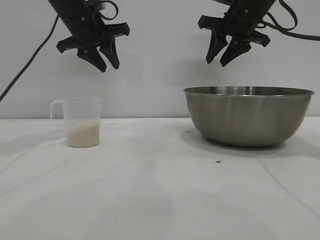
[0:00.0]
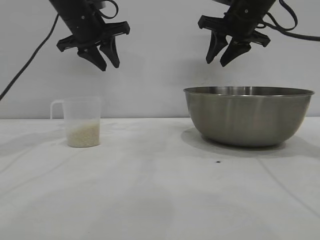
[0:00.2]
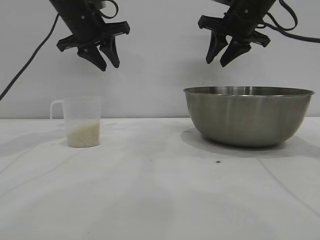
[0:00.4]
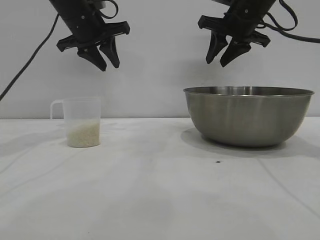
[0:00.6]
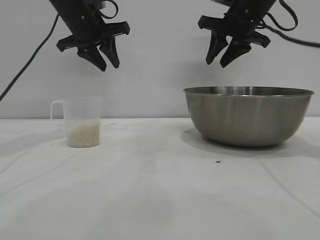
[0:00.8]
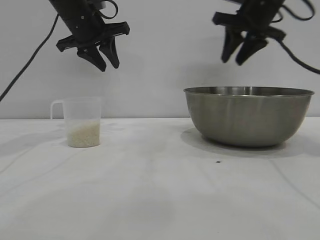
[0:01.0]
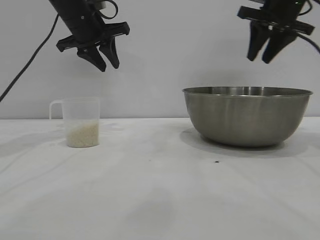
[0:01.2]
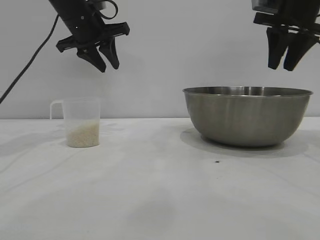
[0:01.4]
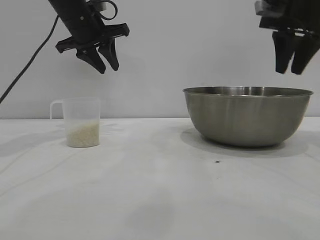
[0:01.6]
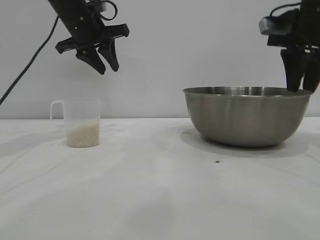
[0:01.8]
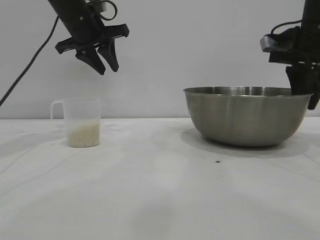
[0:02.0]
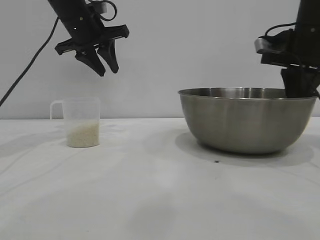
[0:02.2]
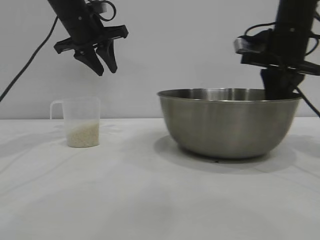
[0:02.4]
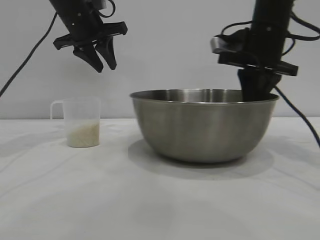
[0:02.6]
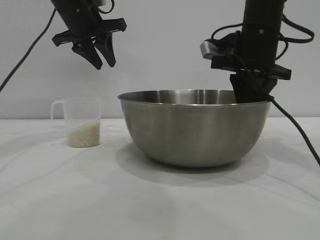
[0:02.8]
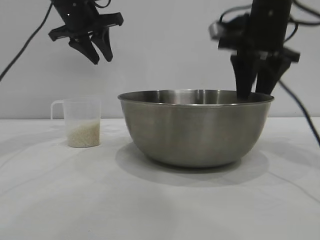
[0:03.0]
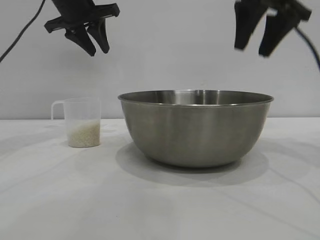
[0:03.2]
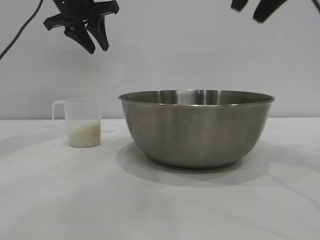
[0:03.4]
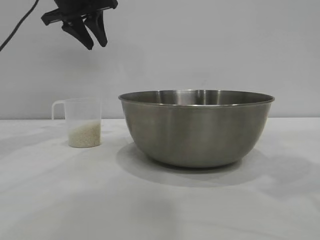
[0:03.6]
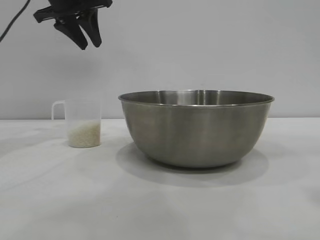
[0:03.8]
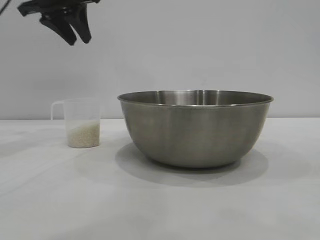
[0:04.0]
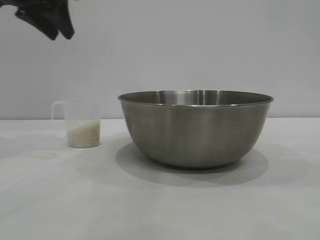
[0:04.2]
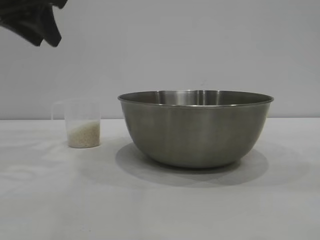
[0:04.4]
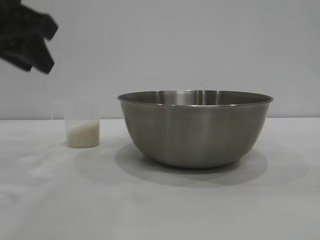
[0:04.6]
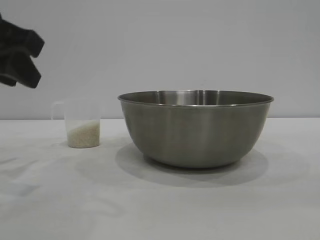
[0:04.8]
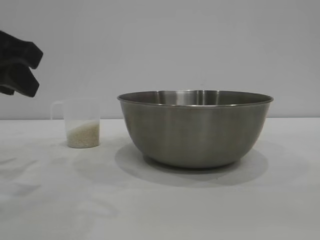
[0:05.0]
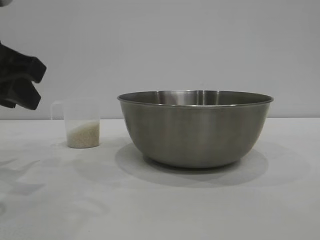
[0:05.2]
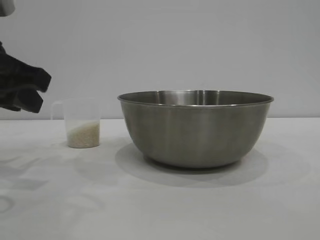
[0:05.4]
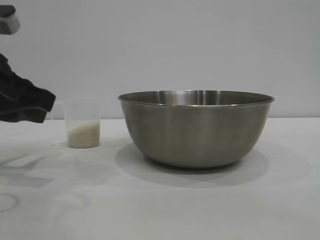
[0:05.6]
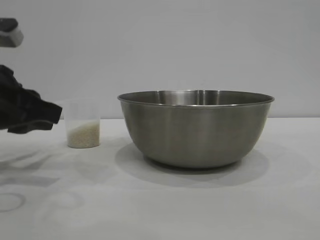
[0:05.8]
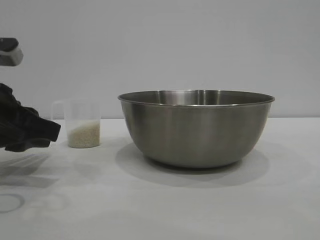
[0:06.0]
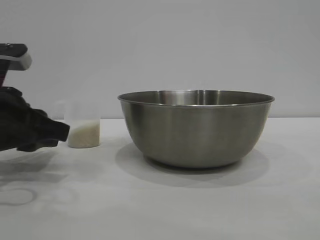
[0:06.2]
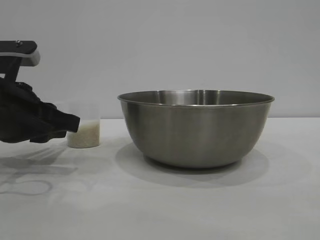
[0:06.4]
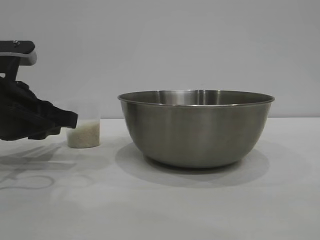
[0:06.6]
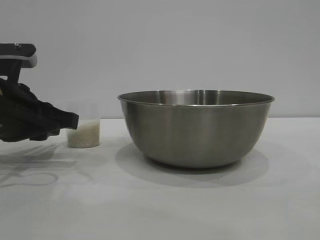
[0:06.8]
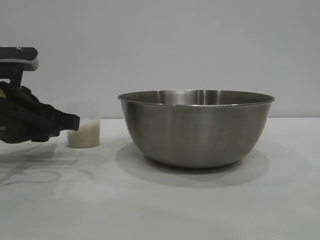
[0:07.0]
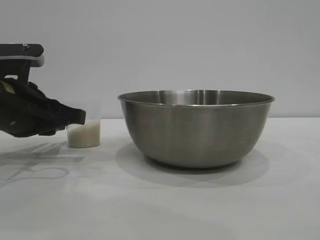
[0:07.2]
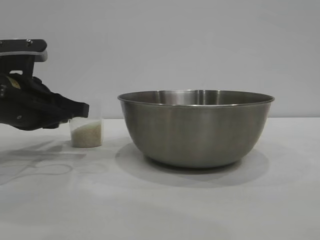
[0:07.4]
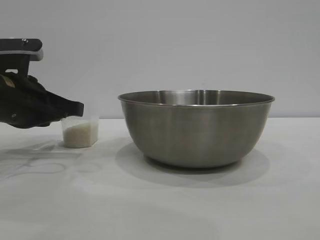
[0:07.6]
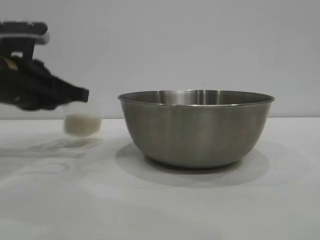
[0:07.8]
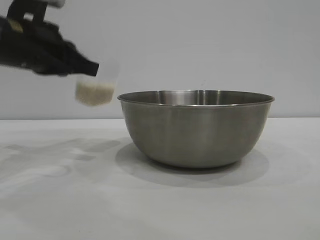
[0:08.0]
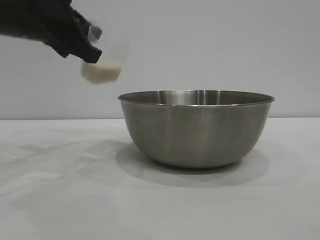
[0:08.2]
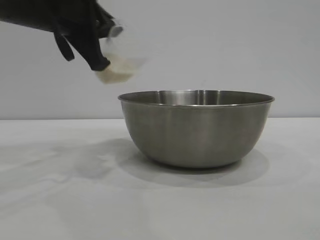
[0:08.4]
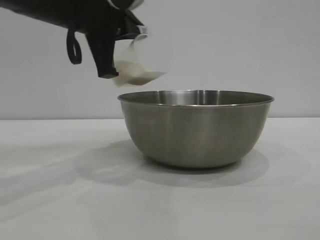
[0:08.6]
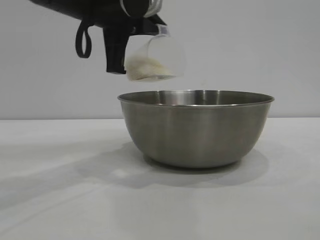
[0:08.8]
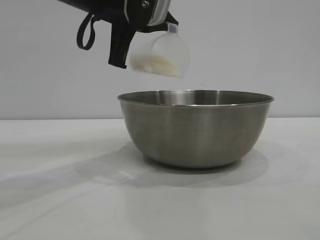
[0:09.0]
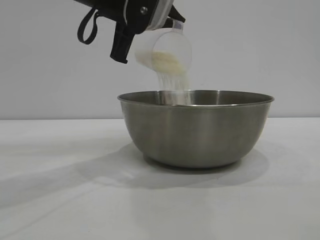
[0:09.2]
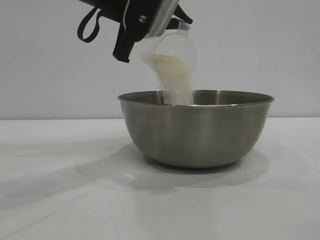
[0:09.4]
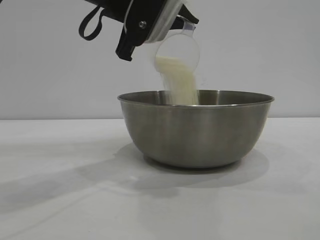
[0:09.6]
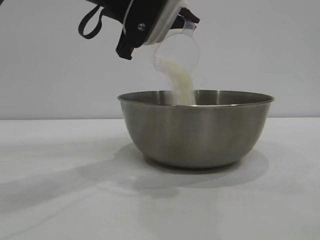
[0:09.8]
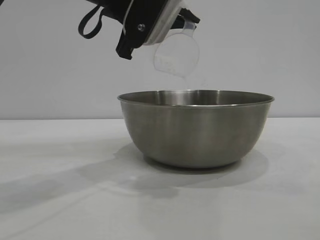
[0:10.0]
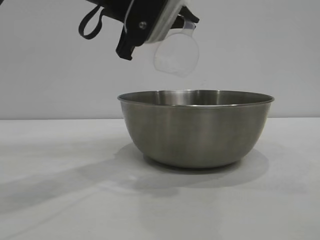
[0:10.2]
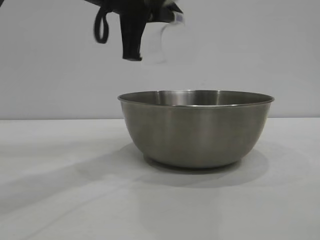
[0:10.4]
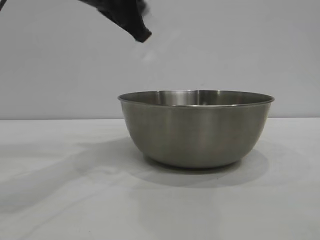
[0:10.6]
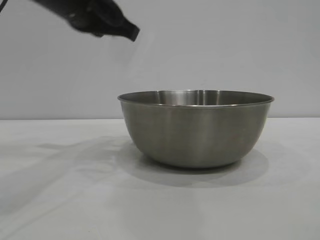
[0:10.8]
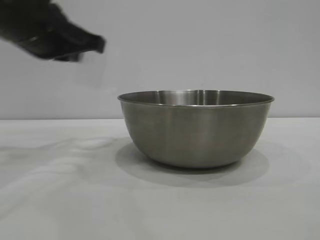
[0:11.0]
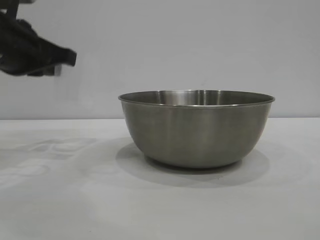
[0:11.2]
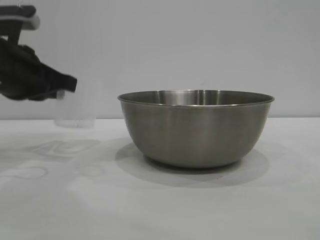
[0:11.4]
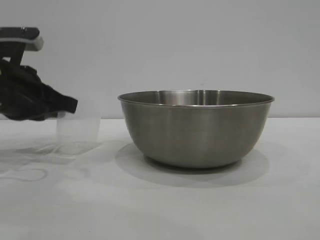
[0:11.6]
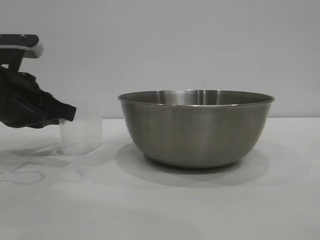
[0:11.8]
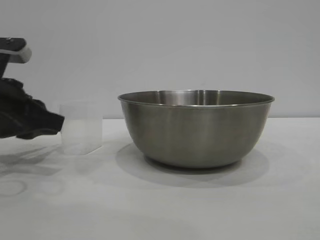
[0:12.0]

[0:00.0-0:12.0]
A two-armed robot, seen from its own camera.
Task of the whole recording: the right gripper grasp the rice container and place it in the center of the table, the left gripper grasp the rice scoop and pour the rice into the rice container.
Step, 0:00.0 to 0:03.0: Move the bowl to the center of view with the right gripper.
Step, 0:03.2 to 0:07.8: Pick up the cup with rice in it with the left gripper.
Step, 0:08.0 to 0:10.6: Pour the rice from the cup into the bowl with the left gripper.

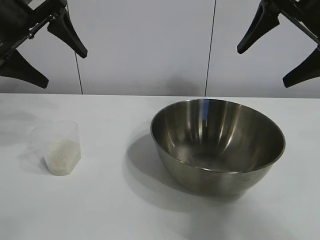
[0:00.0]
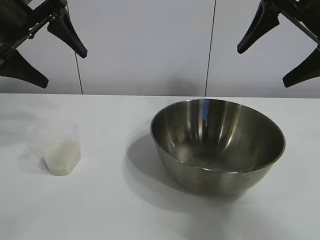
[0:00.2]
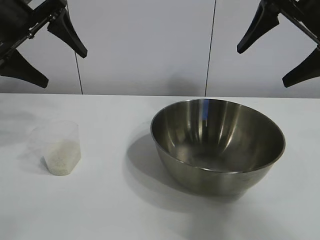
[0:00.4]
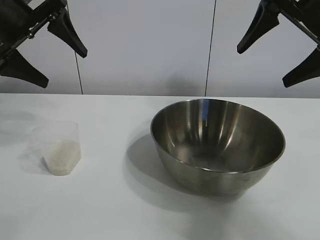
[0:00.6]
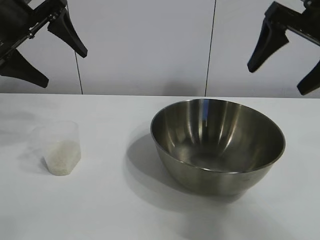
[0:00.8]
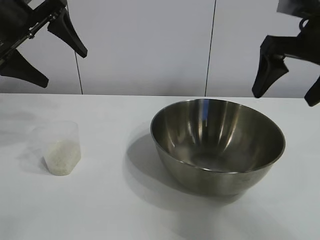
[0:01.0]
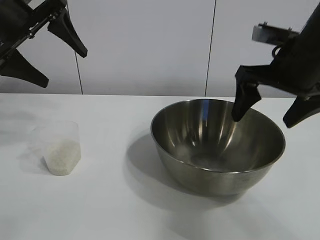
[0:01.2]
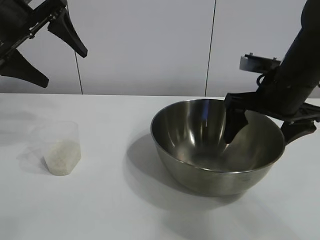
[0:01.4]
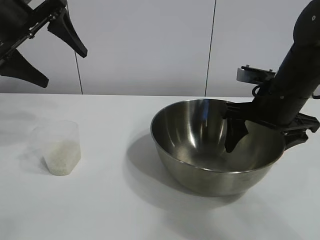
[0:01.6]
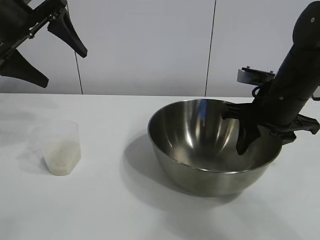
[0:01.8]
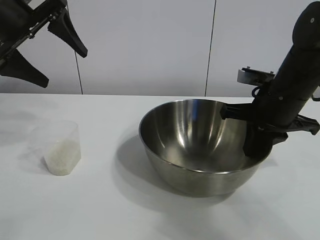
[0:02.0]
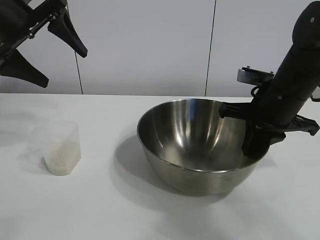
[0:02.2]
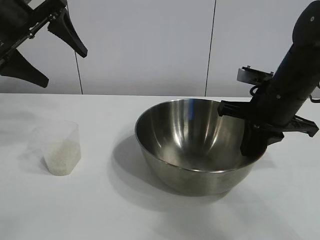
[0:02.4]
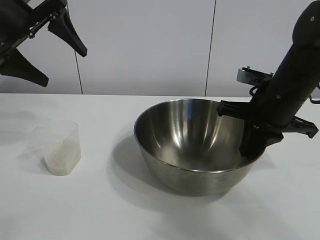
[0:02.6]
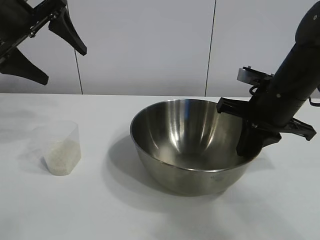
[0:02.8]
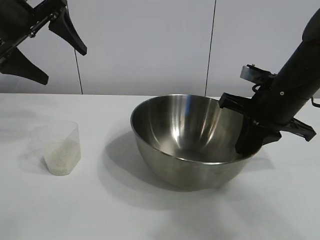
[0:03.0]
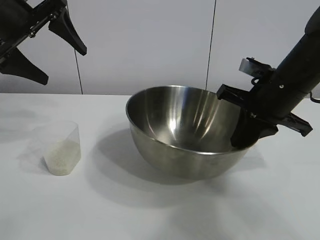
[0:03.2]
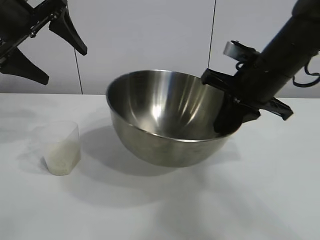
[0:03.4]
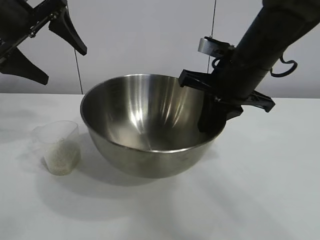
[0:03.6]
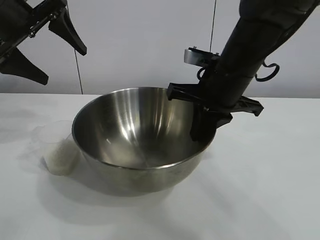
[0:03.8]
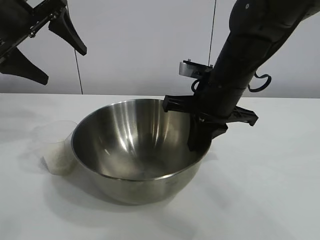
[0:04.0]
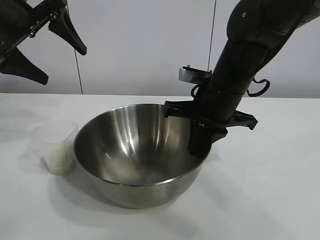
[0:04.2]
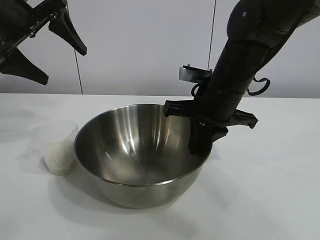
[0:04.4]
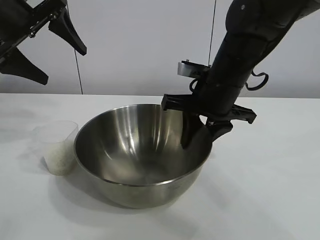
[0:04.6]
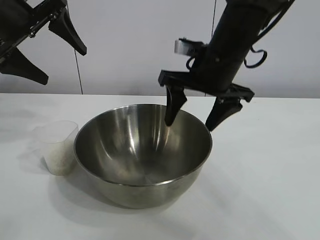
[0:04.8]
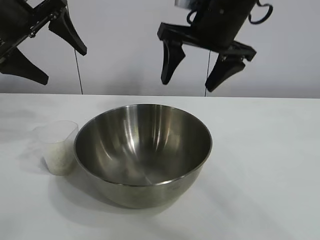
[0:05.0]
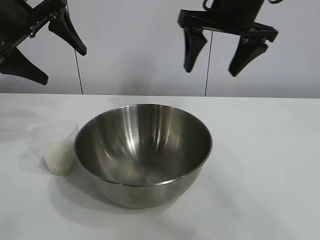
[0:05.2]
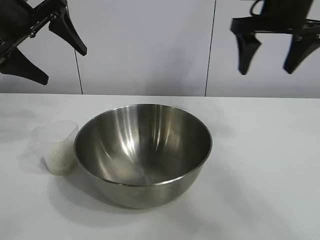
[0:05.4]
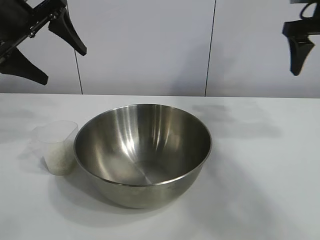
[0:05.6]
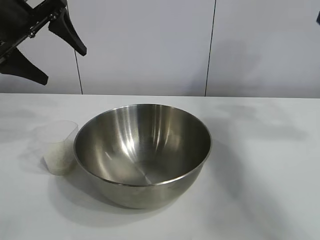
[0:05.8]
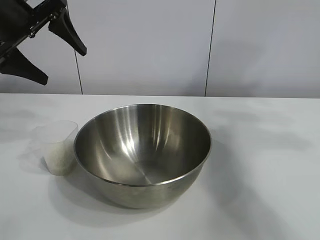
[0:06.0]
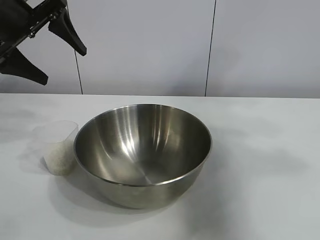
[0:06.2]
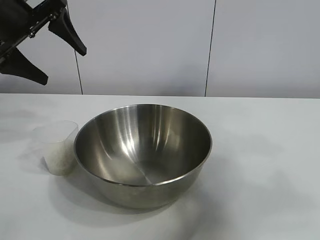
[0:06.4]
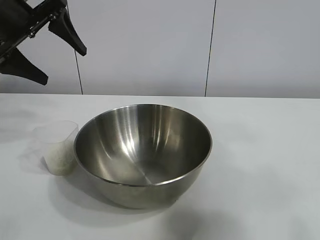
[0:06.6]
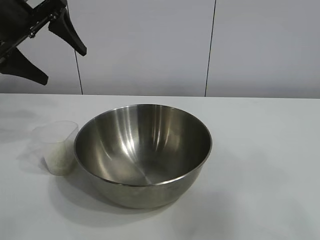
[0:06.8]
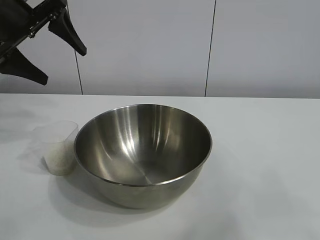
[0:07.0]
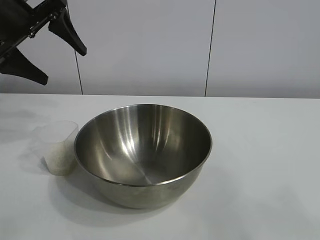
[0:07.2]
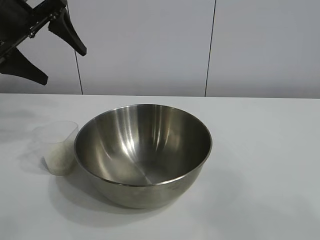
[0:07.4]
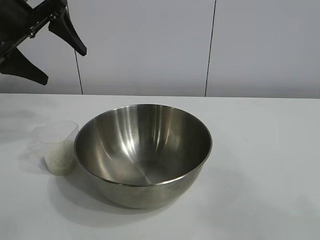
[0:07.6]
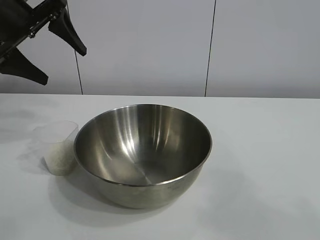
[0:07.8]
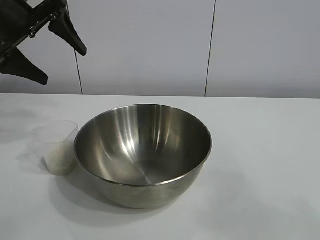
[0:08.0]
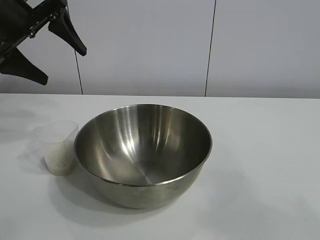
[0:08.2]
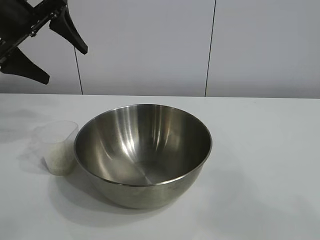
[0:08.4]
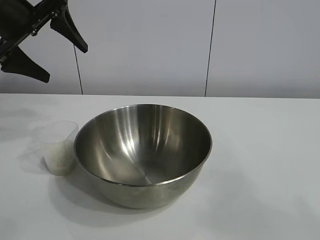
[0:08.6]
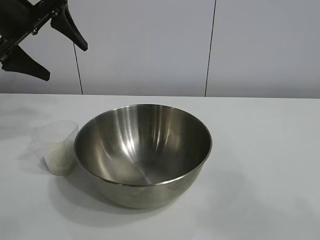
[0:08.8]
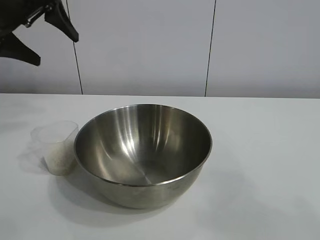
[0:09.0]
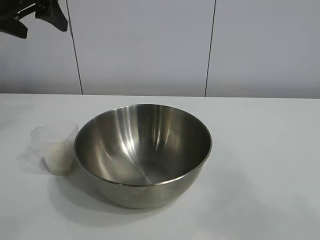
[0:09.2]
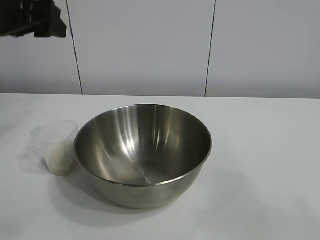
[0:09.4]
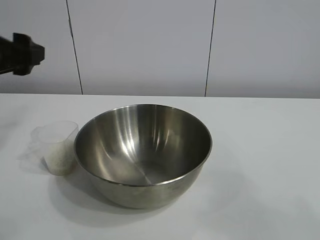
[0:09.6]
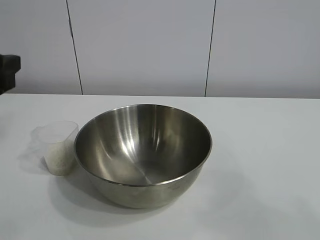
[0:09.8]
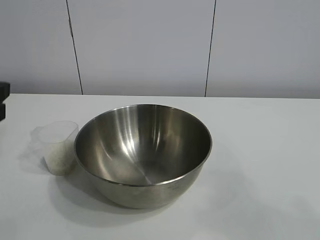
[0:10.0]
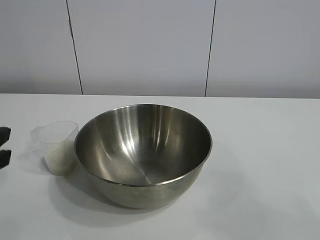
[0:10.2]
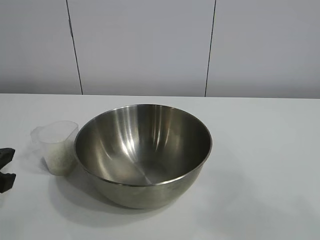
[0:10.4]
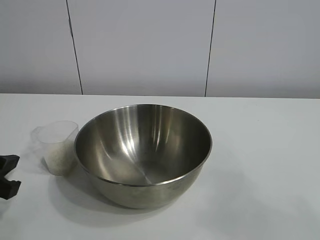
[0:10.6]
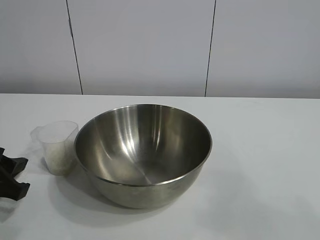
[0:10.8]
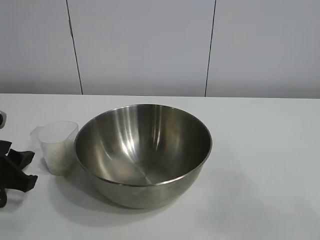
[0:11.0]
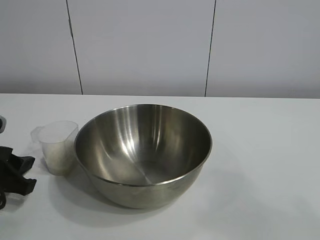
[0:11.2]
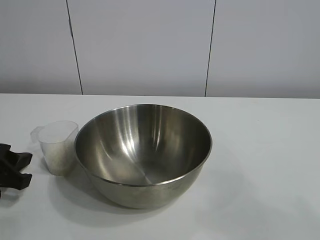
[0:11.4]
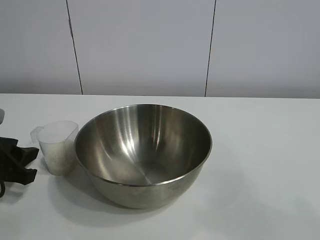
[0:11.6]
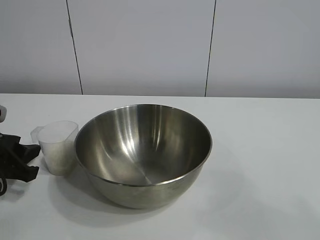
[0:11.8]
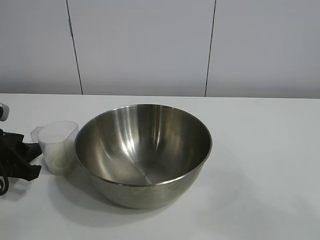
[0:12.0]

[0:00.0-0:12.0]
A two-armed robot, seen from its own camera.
Task of the whole recording: the right gripper grasp the rice container and place it in the center of the table, the left gripper grasp the rice scoop and pour the rice into the rice container.
Step, 0:00.8 to 0:04.6: Move the bowl in the center of view with right gripper.
